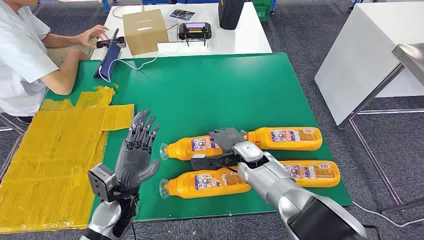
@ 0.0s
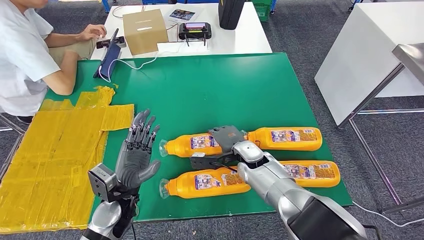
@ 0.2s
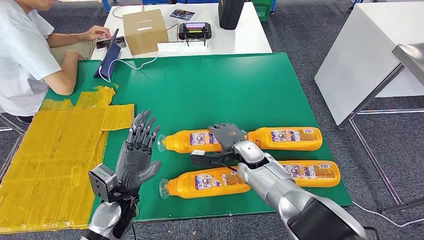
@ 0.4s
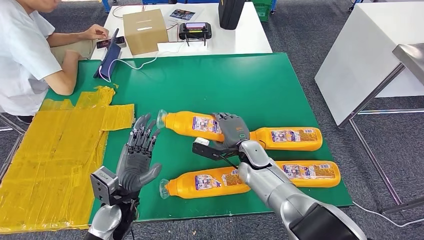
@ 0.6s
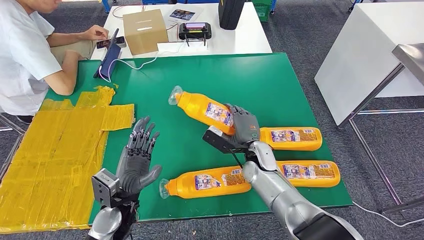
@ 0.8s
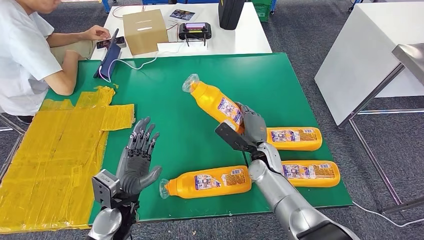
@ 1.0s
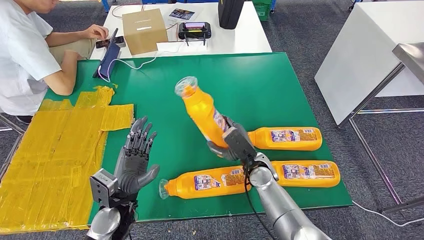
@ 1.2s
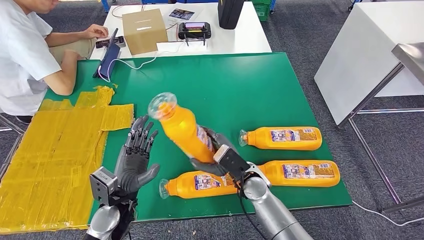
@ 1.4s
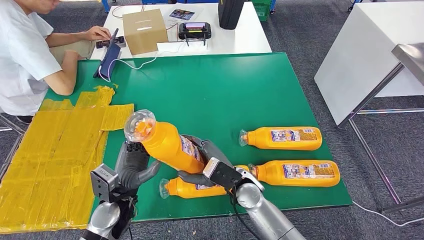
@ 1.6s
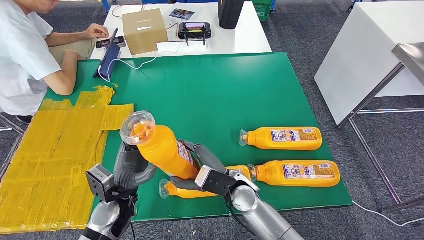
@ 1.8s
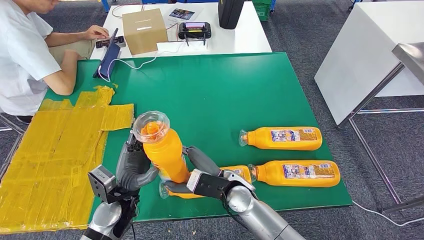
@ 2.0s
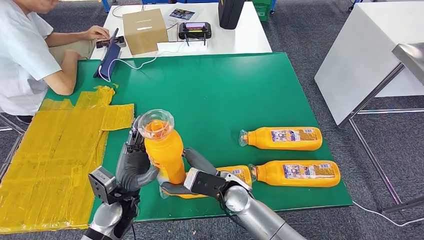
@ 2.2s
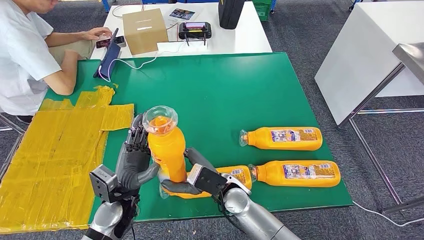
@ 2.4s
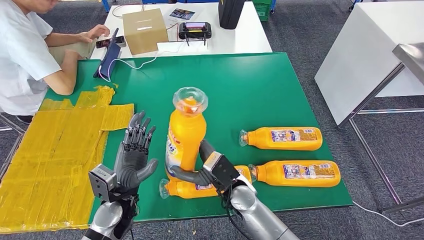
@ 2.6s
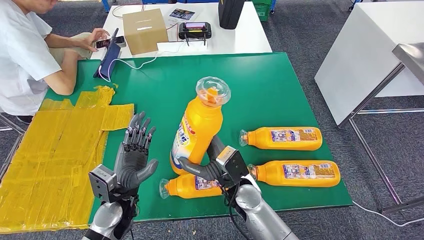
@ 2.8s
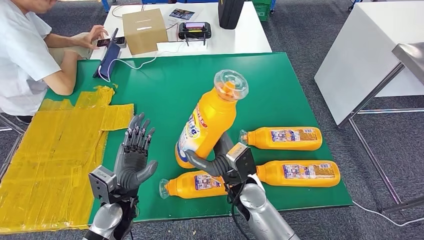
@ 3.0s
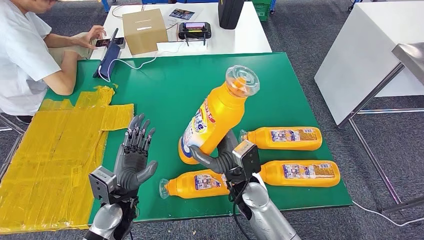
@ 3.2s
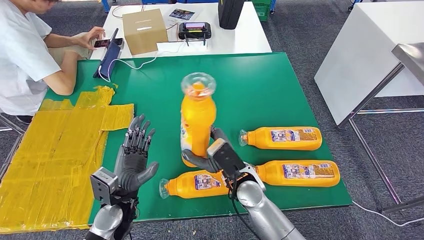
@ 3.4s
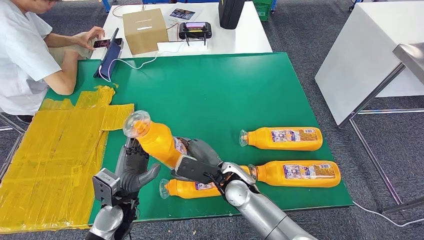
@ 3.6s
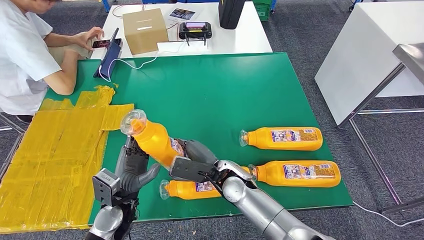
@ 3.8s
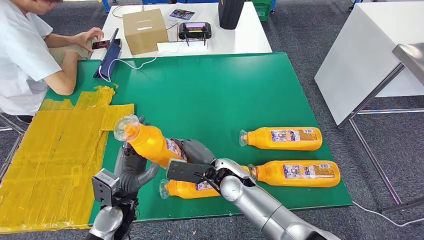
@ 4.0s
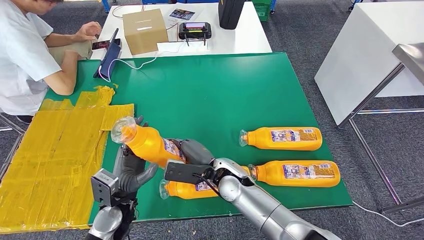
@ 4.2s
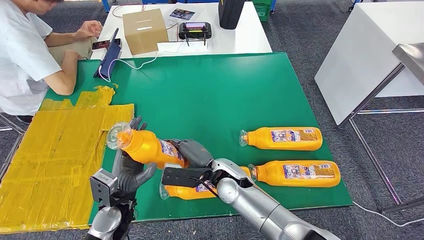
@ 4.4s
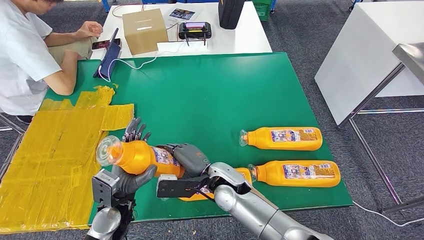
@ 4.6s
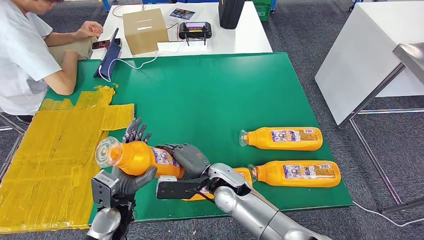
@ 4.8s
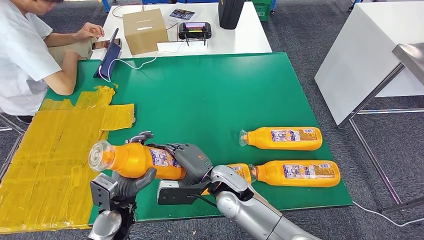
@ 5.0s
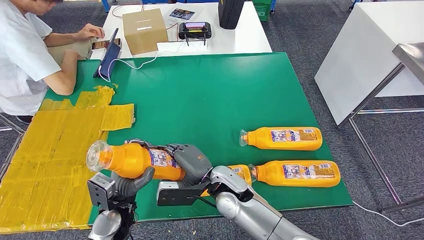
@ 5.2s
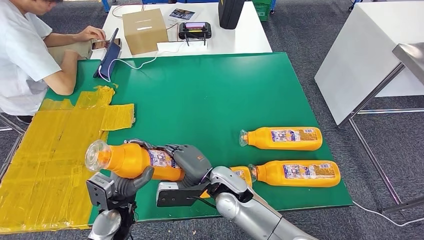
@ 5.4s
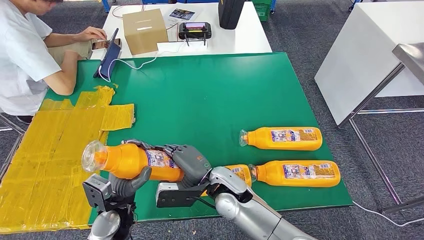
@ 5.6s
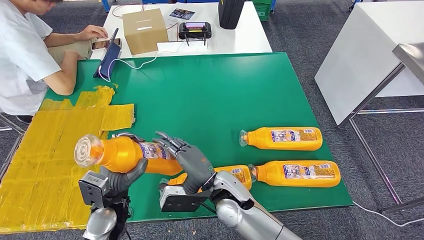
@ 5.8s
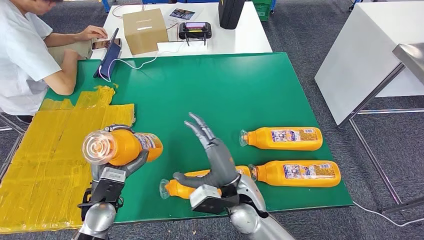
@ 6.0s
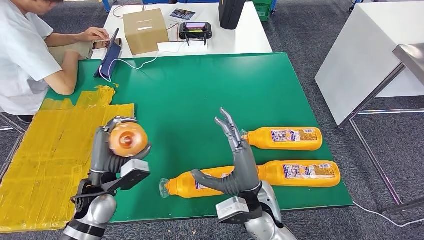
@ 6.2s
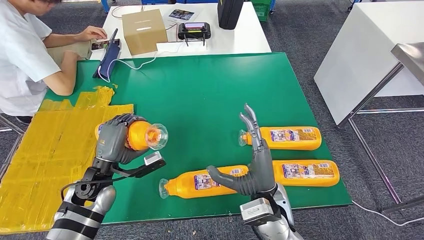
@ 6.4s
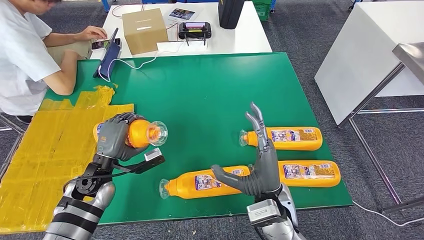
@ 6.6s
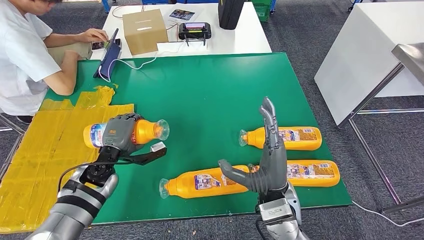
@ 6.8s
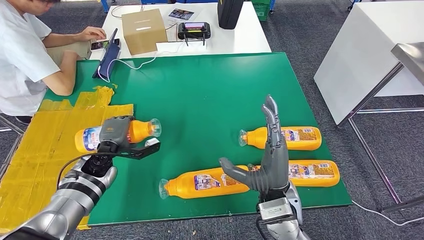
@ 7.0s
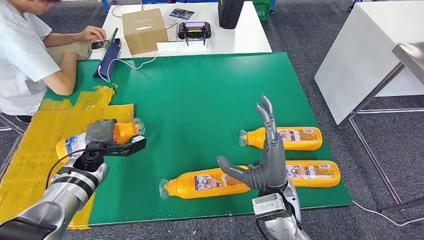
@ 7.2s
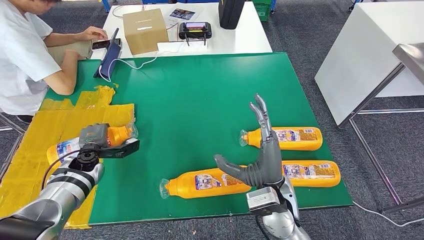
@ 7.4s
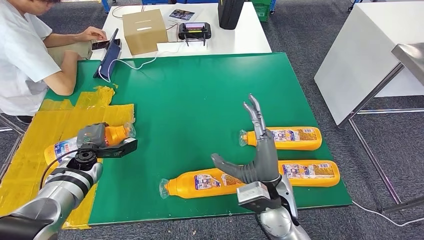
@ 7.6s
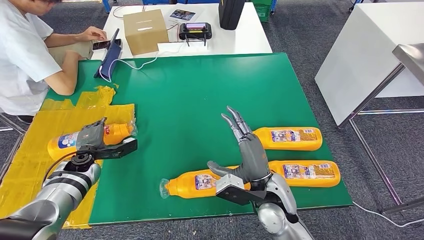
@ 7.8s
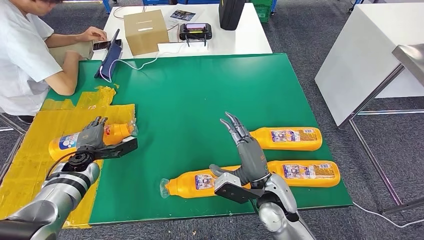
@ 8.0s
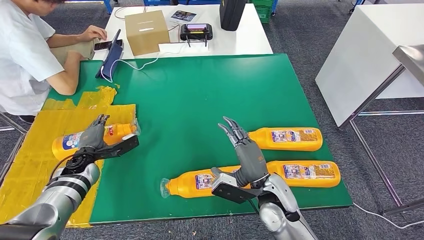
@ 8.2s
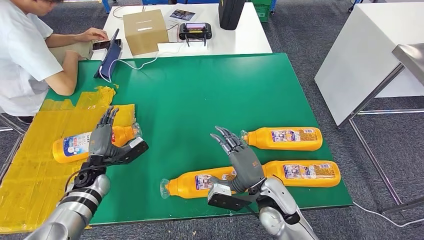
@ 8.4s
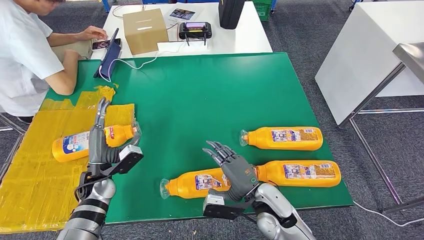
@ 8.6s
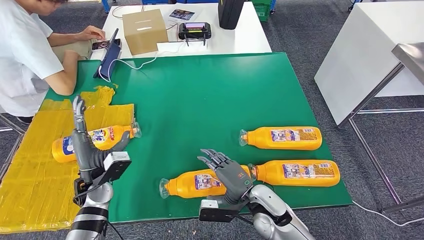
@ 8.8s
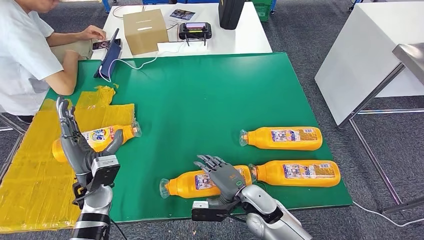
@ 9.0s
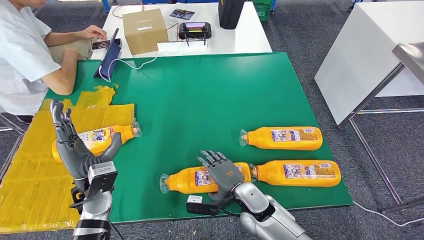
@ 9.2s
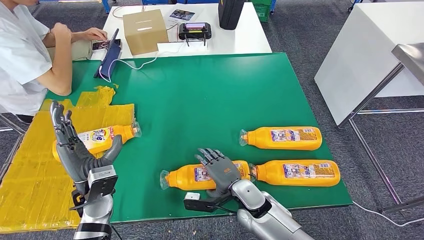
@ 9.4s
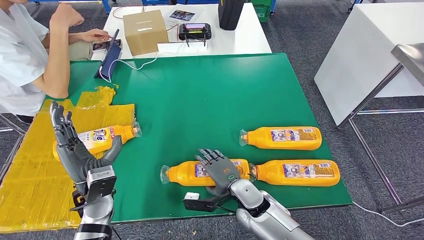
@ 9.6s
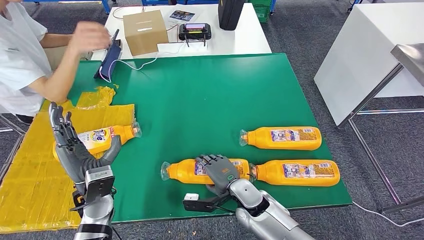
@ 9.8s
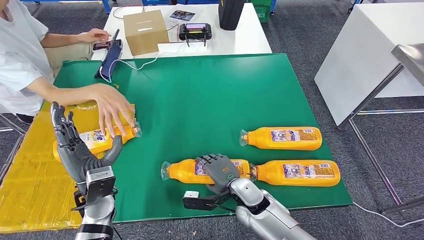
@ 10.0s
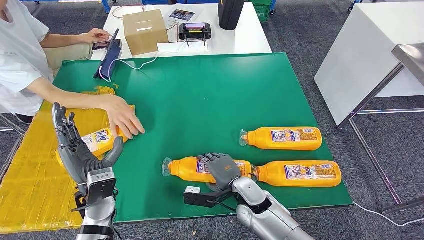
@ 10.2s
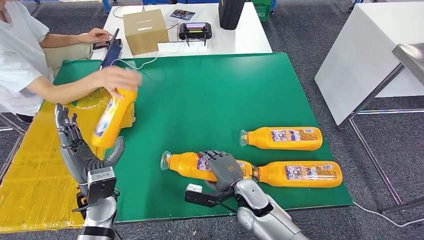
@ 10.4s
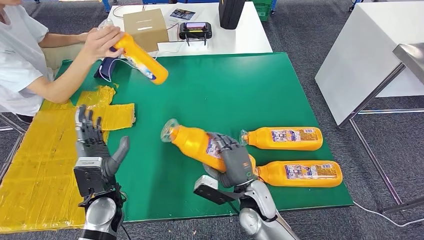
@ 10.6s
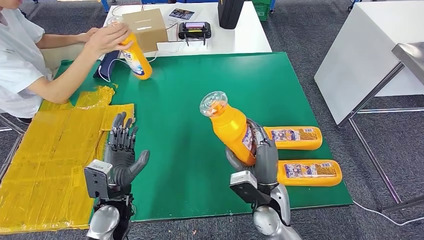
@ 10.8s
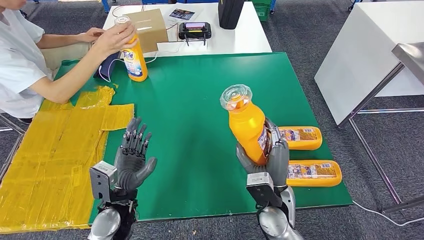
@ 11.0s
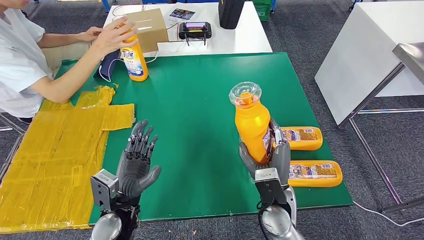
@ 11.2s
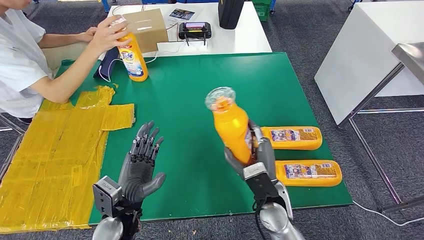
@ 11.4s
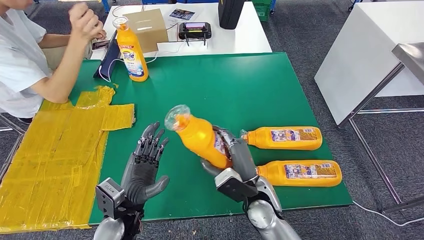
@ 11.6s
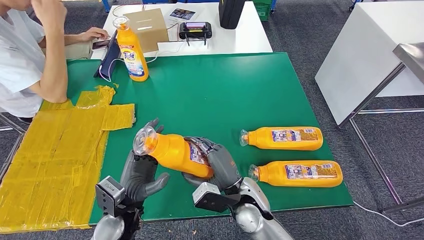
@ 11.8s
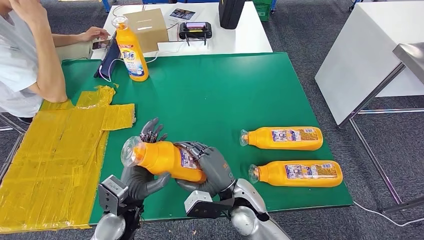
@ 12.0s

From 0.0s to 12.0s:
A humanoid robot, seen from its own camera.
Step, from 0.0s to 1.8s: Take the fast-moving consumer goods bottle from the table.
Step, from 2.6s to 8.2s: Flip the fast-moving consumer goods bottle to the front side.
Step, from 9.6s to 11.4s: Pick up the fast-moving consumer goods bottle from the table.
From 4.4s to 6.0s: The right hand travels backward by about 5 cm.
From 6.0s to 7.6s: The right hand moves to the right, approximately 5 cm; the left hand shifts some 15 cm forward and to the left.
From 7.6s to 9.0s: The left hand goes about 15 cm backward and to the right. The right hand travels downward by about 10 cm.
From 9.0s to 10.4s: The hands move only a little.

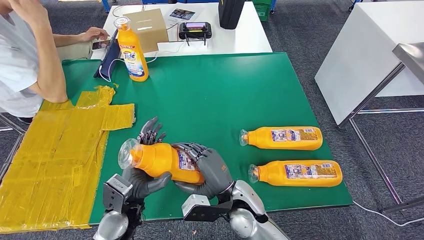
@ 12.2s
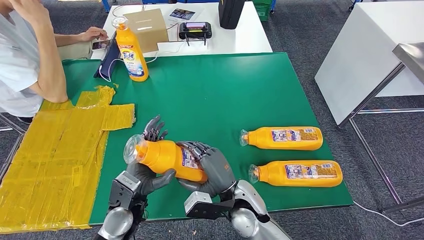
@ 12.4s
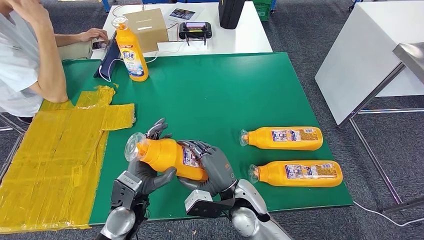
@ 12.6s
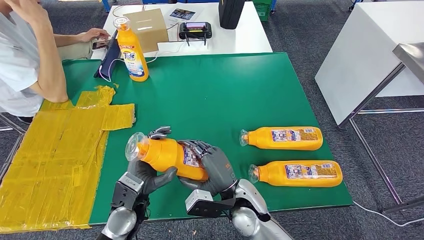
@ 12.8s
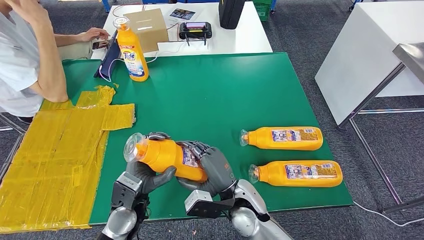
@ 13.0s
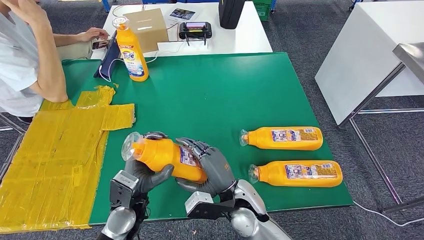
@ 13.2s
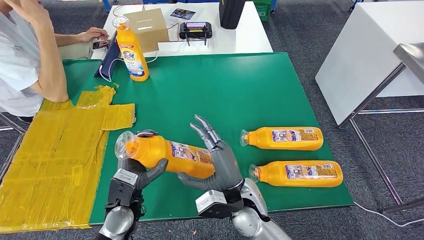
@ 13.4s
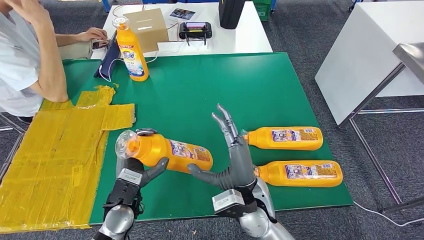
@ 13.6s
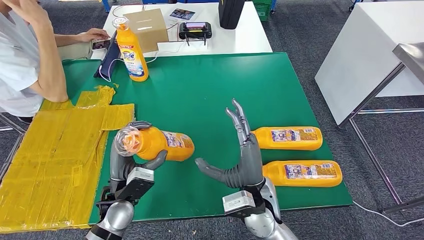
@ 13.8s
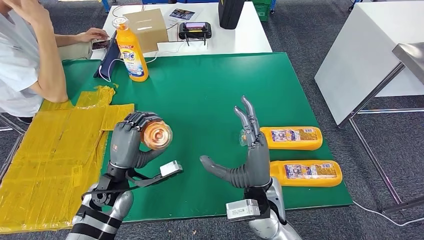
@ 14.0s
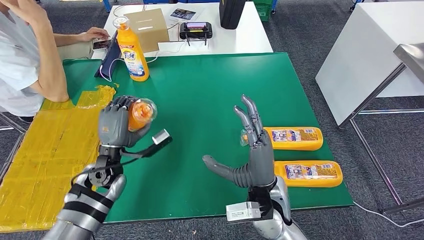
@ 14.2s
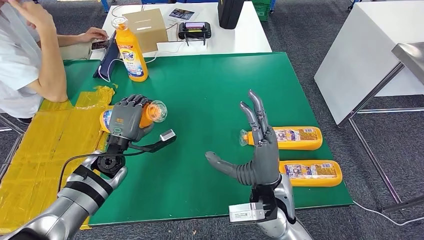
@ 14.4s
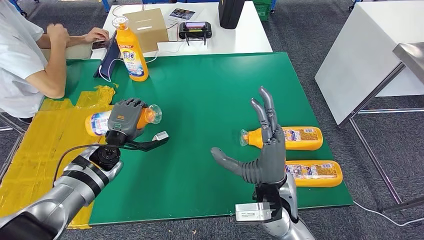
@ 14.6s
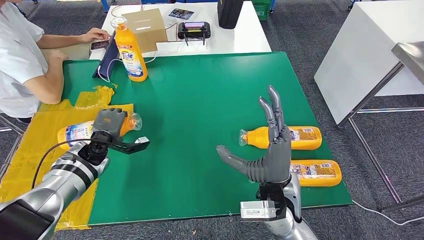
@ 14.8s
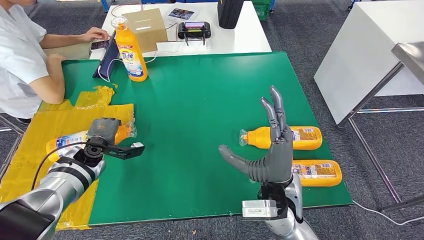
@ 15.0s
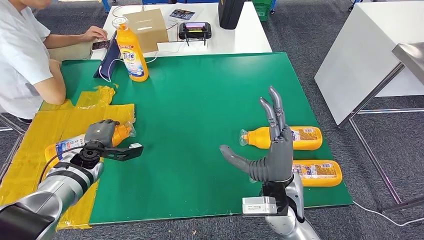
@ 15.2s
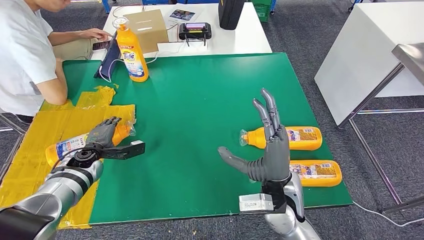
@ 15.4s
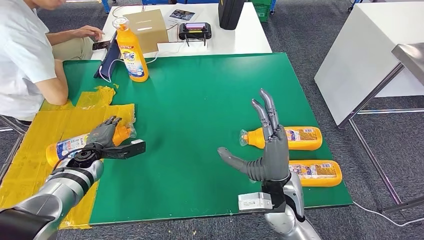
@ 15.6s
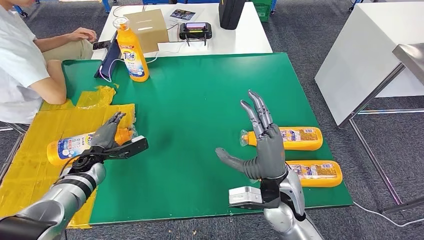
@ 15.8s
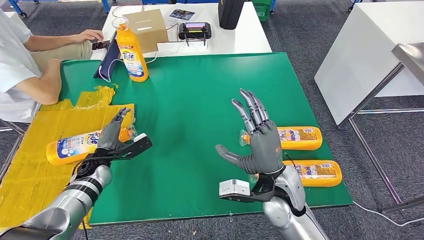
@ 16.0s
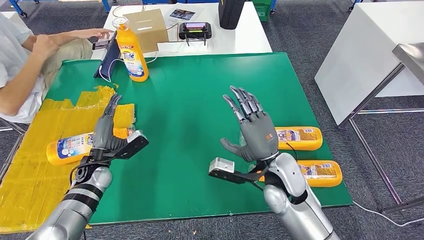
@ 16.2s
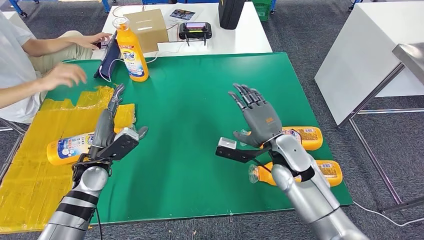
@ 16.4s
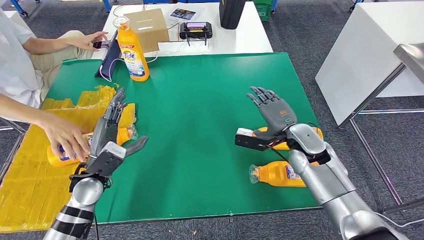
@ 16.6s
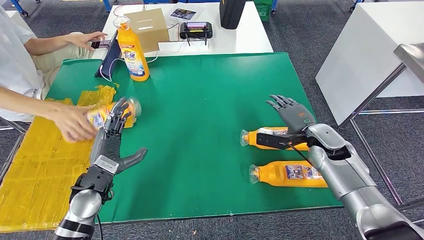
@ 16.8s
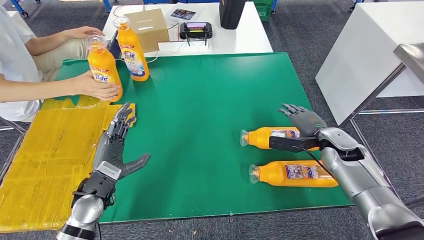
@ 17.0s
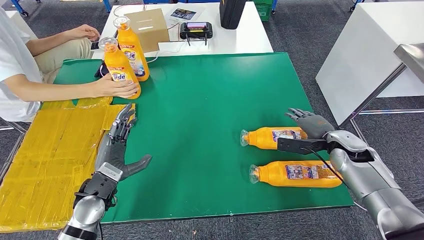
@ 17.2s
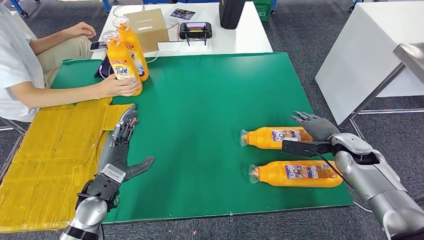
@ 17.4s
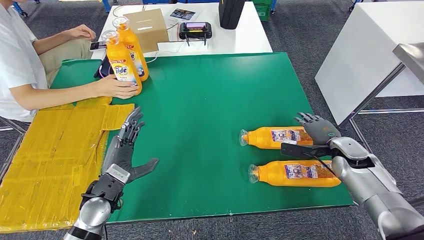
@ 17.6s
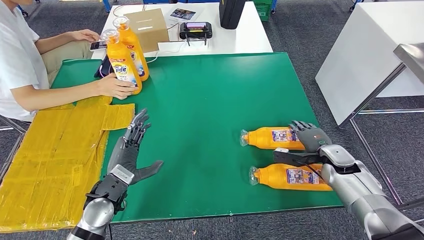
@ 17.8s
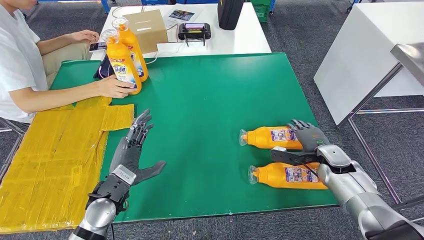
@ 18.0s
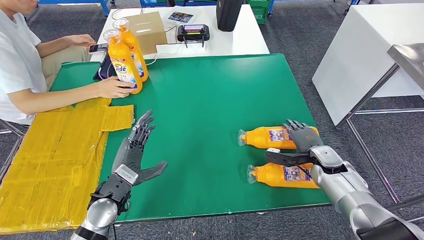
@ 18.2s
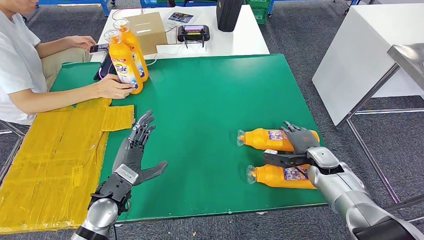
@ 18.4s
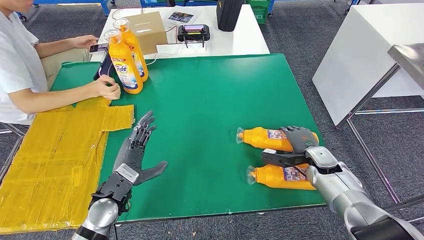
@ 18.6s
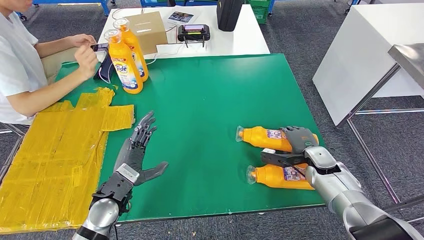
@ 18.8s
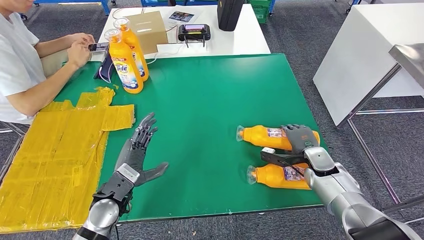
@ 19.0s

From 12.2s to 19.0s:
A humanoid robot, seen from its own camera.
Step, from 12.4s to 15.8s: Flip the fast-moving consumer goods bottle to the front side.
